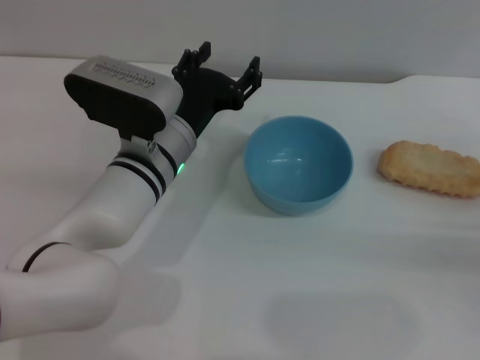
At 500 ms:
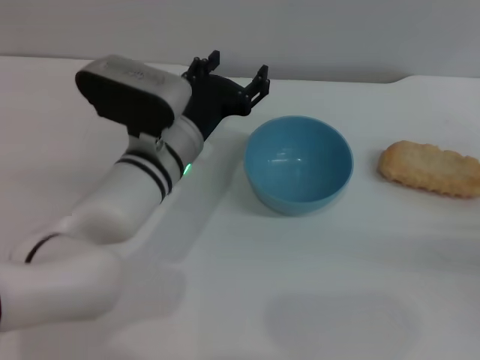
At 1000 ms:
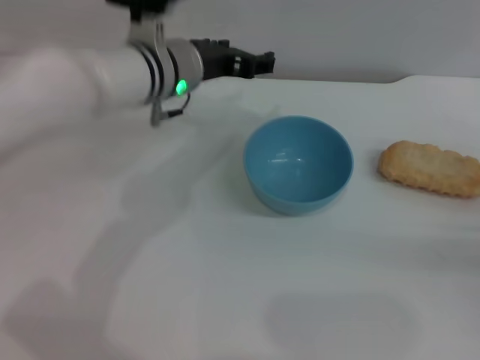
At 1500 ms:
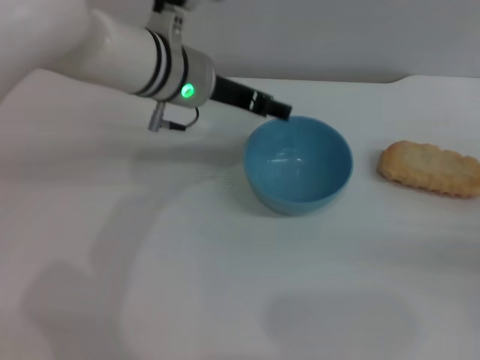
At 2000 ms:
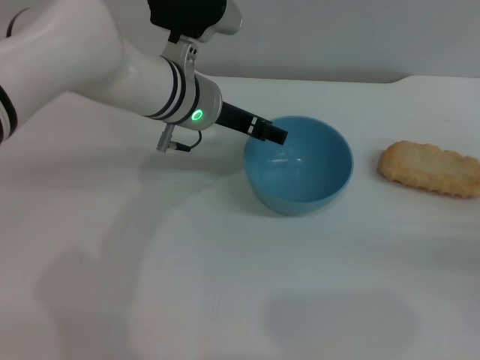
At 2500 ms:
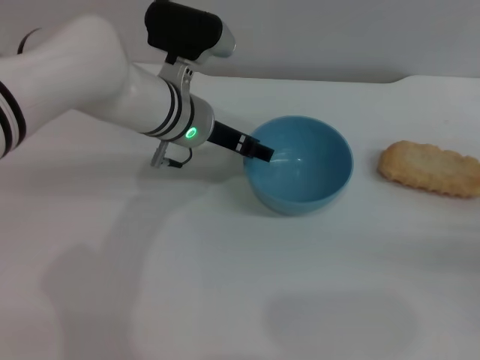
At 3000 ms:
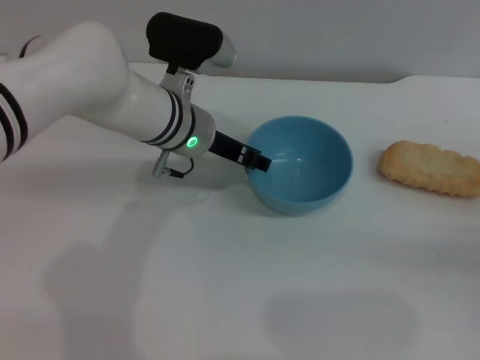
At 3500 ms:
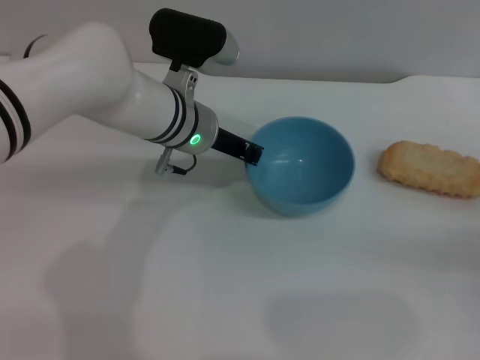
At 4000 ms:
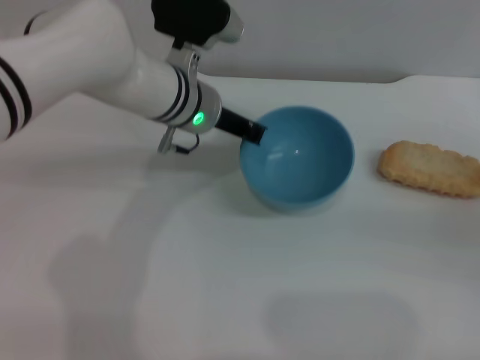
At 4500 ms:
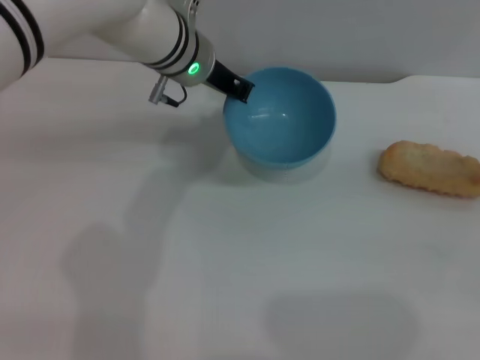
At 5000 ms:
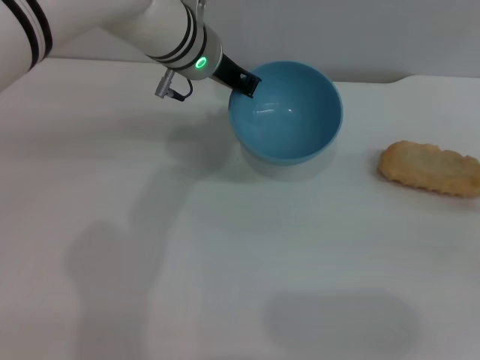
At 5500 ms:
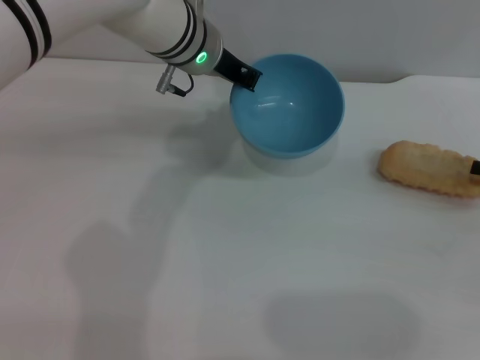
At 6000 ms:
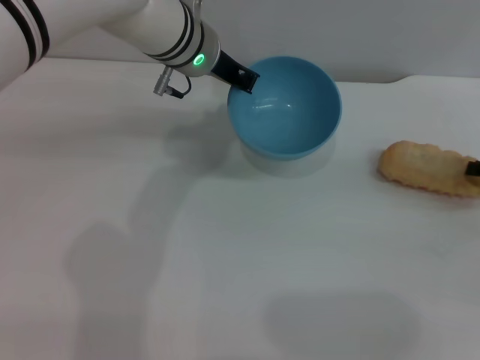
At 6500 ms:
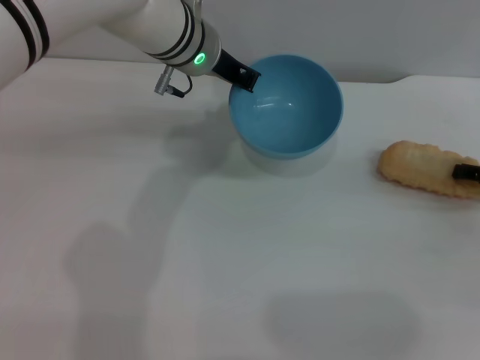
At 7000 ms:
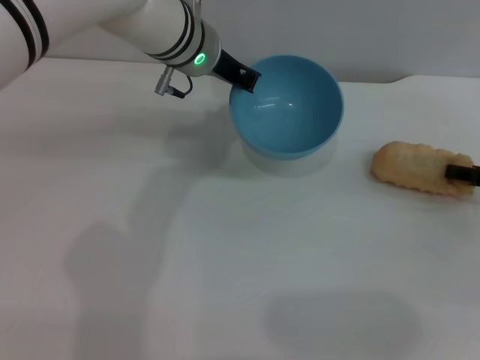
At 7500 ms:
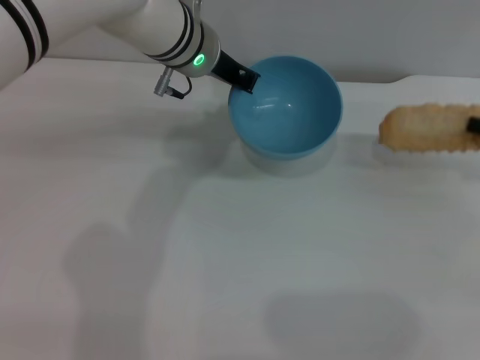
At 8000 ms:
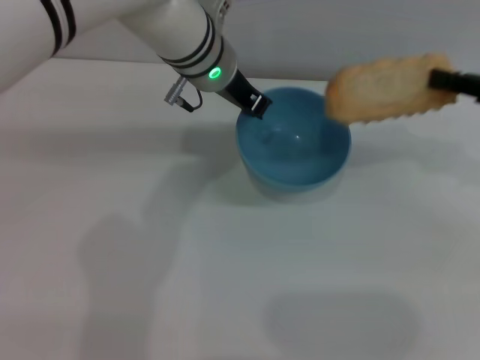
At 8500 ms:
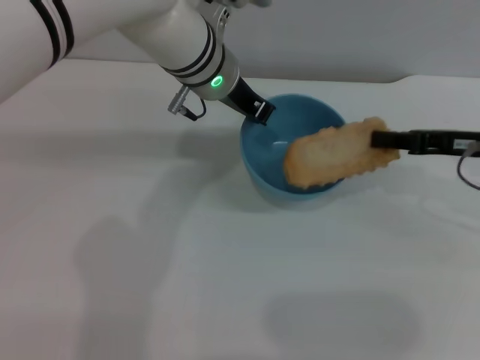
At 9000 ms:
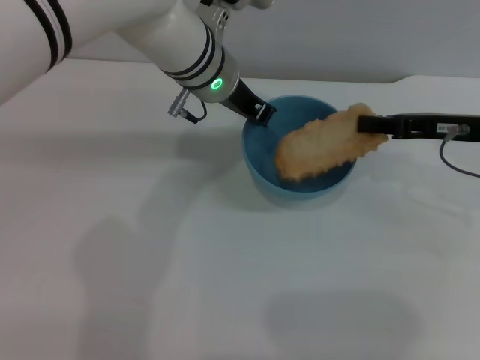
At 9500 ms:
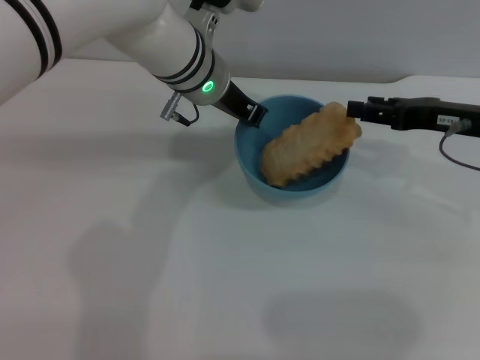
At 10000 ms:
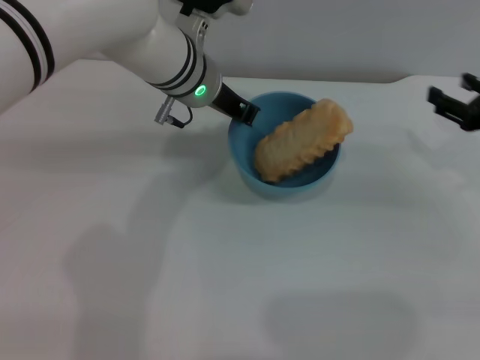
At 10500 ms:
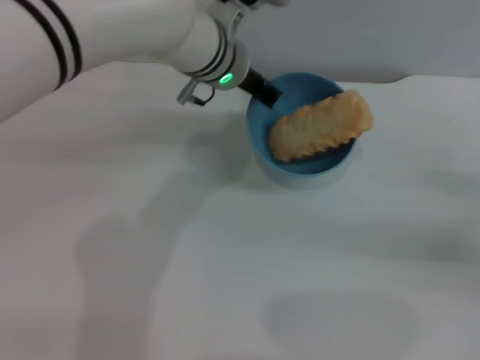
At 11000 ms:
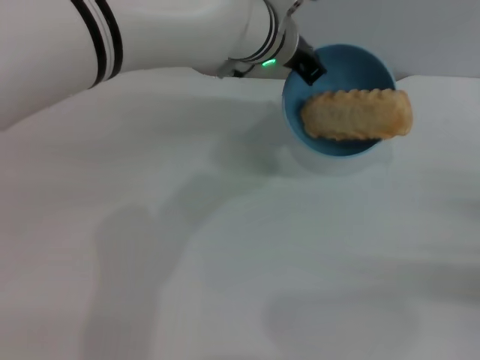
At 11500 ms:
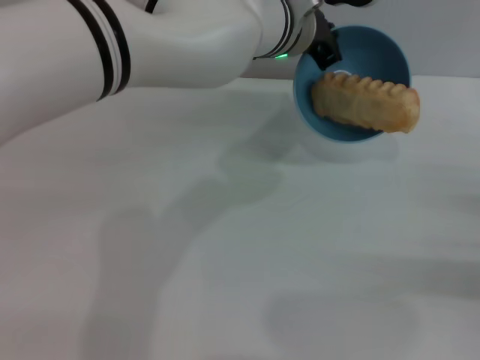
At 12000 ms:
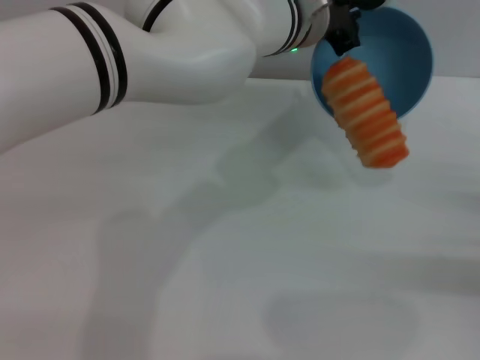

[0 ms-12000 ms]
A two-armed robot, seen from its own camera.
Task of the whole recording: put the bread into the blue bowl and pour it out repeatedly.
Step, 0 ms to 4000 ms: Pick up the bowl with the left gripper.
Step, 4500 ms to 7000 ms: Pick up the bread with the right gripper.
Step, 7500 ms to 9500 ms: Place the bread into the bowl.
0 ms to 2000 ms: The left gripper heads forward and upward, covering roughly 10 cm.
2000 ms to 4000 ms: The left gripper closes.
4000 ms to 6000 ms: The right gripper ends up about 5 cm from where it was. Meanwhile the left gripper shifts by some 5 cm.
6000 ms to 8000 ms: The right gripper travels upward by about 10 cm, and closes up.
8000 ms to 10000 ms: The right gripper heads downward, covering some 5 cm, and opens up.
10000 ms to 12000 ms: The left gripper moves to the right, about 10 cm; the right gripper goes some 15 cm backward, downward and to the right.

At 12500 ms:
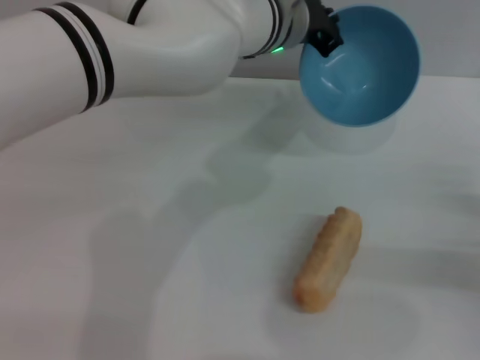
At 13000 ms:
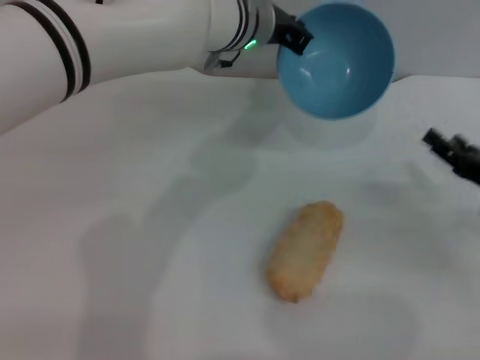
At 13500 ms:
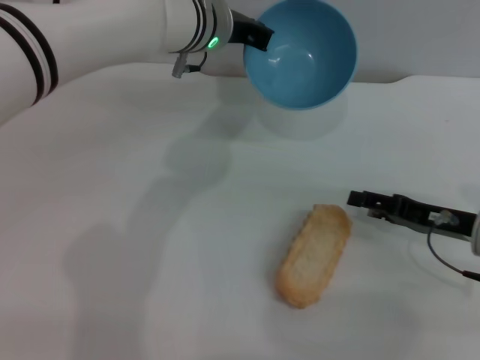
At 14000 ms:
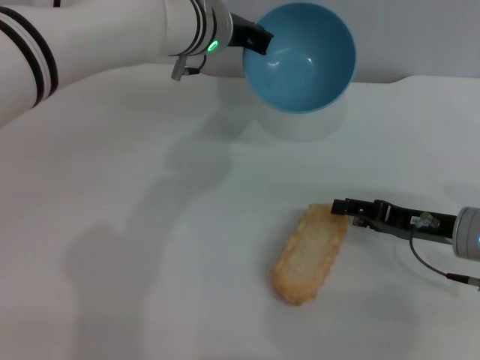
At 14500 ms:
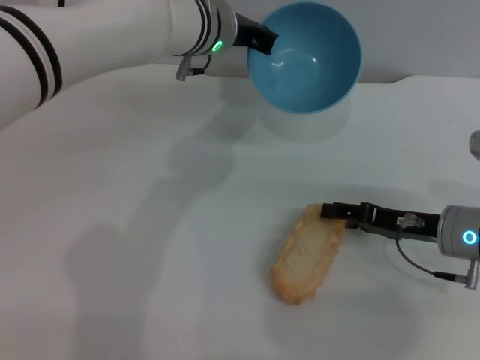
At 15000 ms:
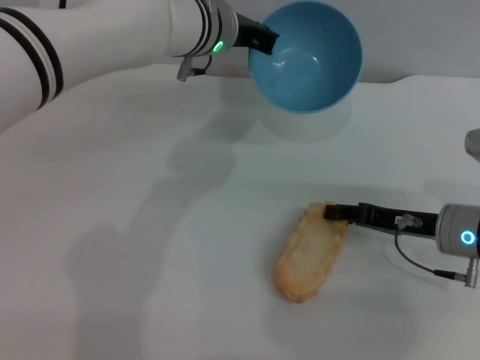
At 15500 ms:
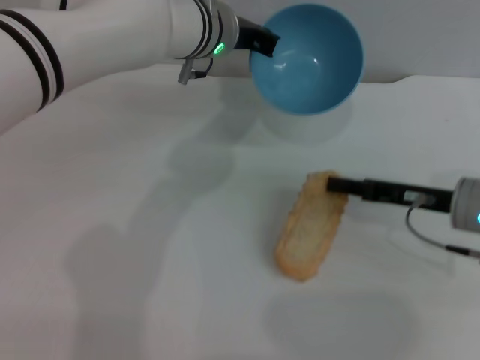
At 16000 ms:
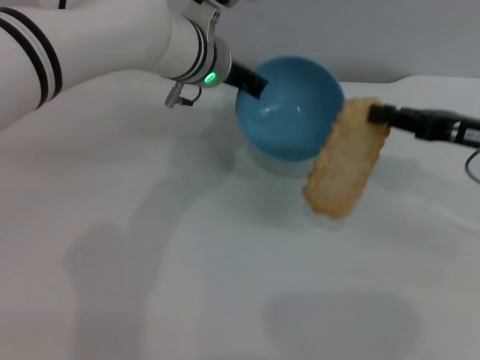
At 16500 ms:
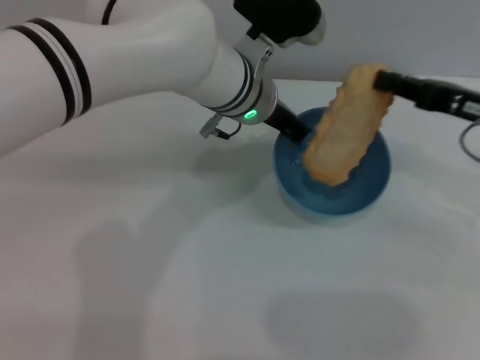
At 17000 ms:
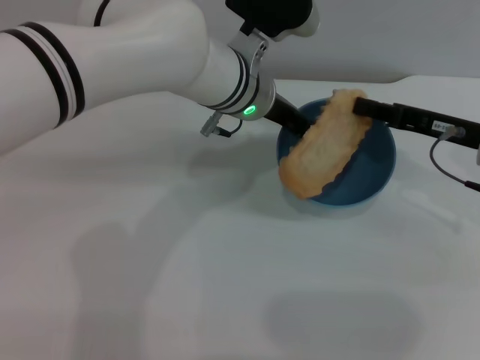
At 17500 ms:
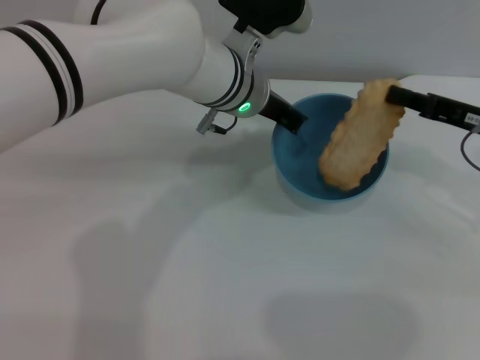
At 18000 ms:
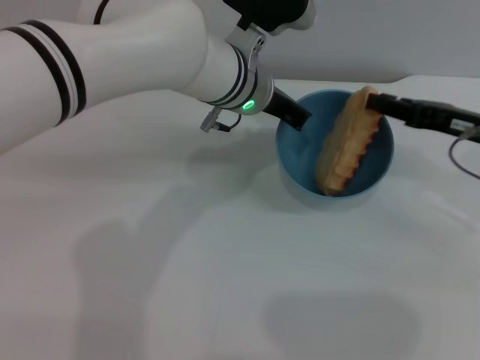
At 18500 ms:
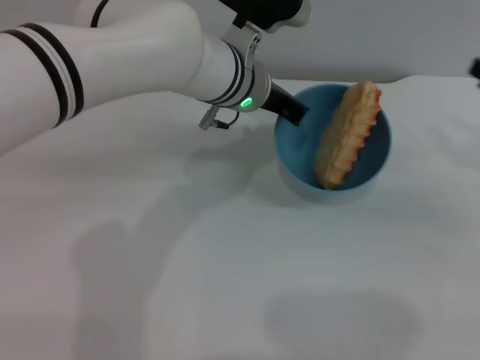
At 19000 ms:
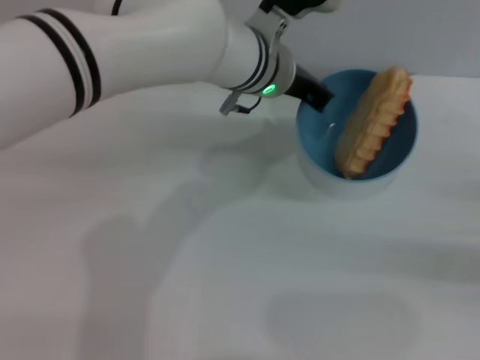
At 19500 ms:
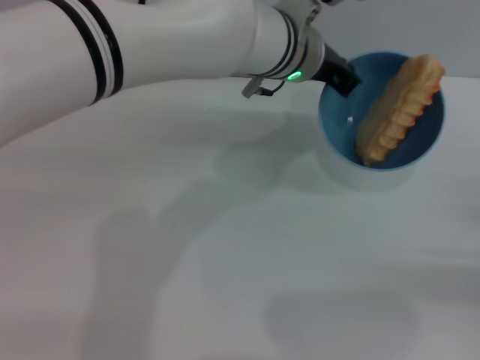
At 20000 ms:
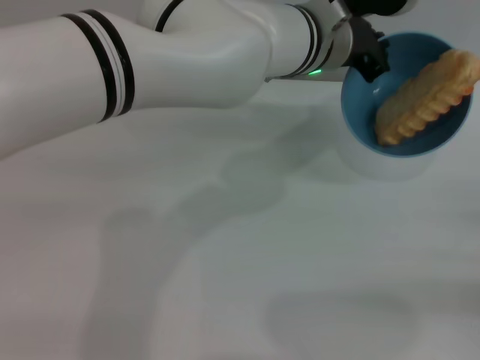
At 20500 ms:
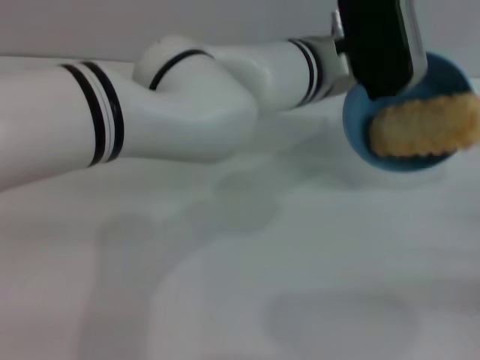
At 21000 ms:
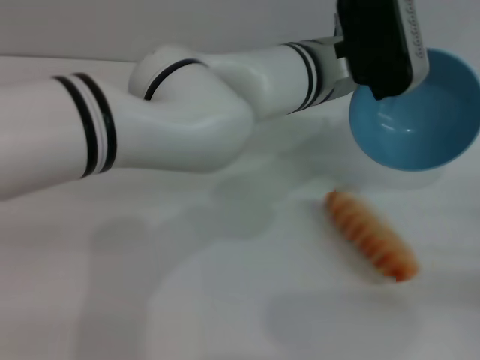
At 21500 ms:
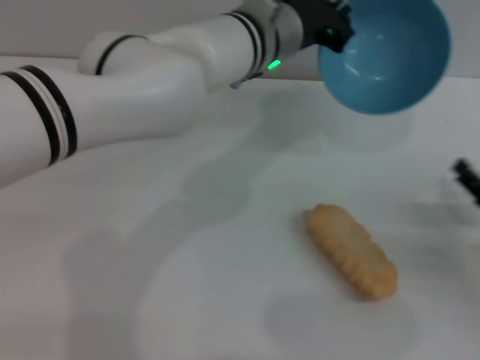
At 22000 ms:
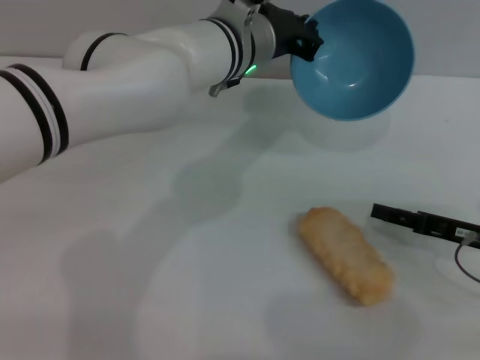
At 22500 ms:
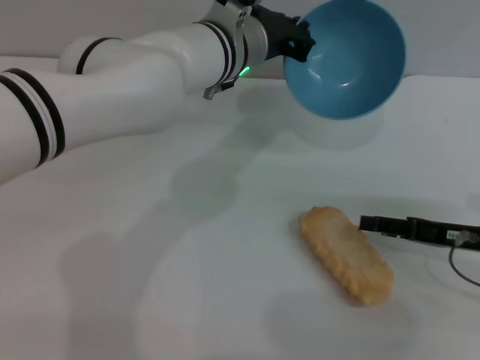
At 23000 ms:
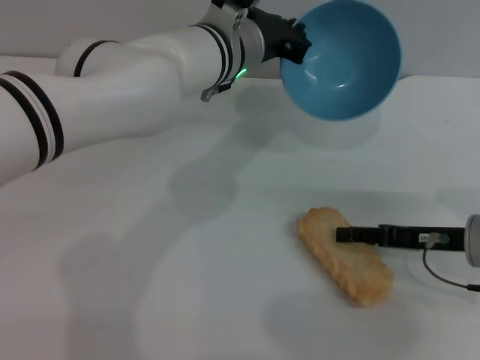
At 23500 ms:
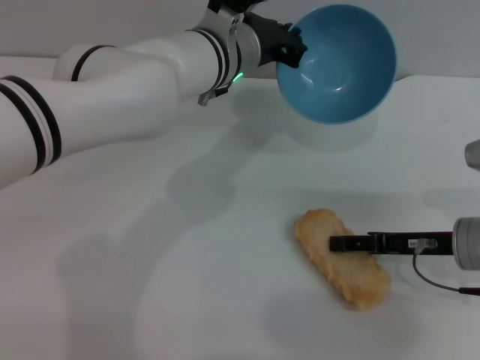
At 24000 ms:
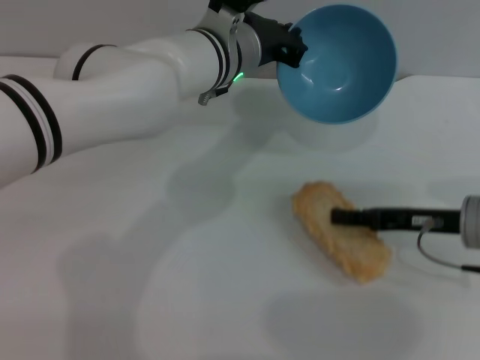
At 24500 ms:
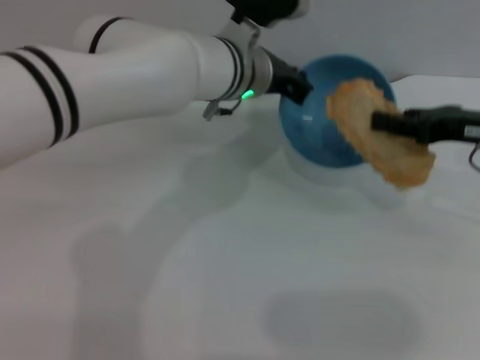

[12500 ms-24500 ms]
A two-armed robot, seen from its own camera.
Task of the whole recording: put the bread into the blue bowl and pour it out repeatedly.
Step, 12500 ms to 15500 ms: Pick up the bread with the right gripper.
Step, 16000 ms to 18000 ms: Place the bread into the bowl.
Step, 18500 ms to 21000 ms: Pour the bread out of the bowl.
Step, 21500 ms to 24000 ms: Pick up the bread with the right gripper.
12500 ms to 14500 ms: The left gripper travels to the left by approximately 5 cm. The right gripper shifts about 15 cm to the left and forward.
14500 ms to 16500 ms: The right gripper travels upward by some 10 cm, and closes its fingers. The left gripper shifts by some 5 cm.
16500 ms to 18500 ms: The right gripper is displaced to the right by some 5 cm, and opens up.
18500 ms to 20500 ms: The right gripper goes roughly 15 cm backward and downward. The left gripper heads to the right, covering about 5 cm.
20500 ms to 22500 ms: The left gripper heads to the left, covering some 10 cm. The right gripper goes about 10 cm to the left and forward.
22500 ms to 24500 ms: The right gripper heads upward and forward, covering roughly 10 cm, and closes up.

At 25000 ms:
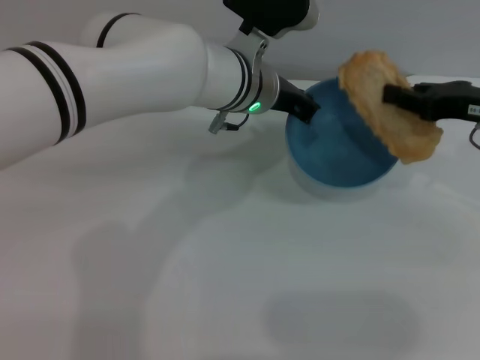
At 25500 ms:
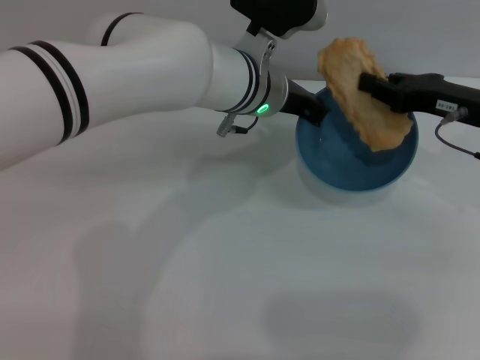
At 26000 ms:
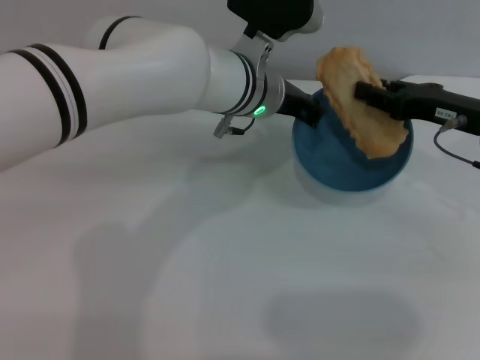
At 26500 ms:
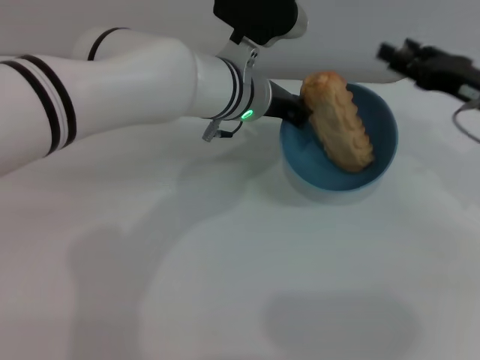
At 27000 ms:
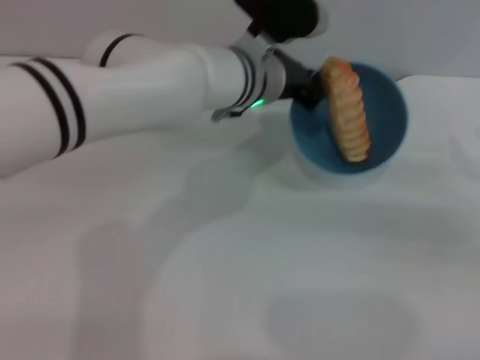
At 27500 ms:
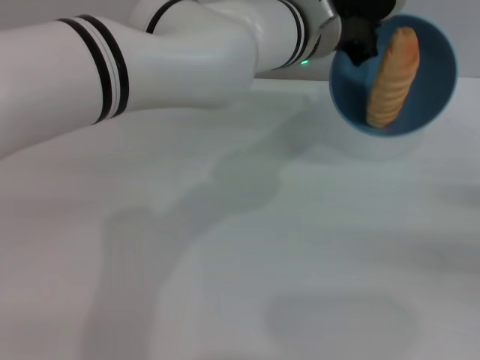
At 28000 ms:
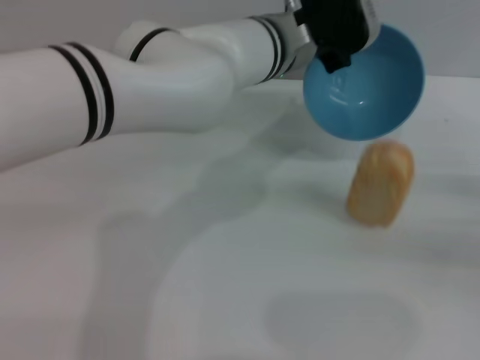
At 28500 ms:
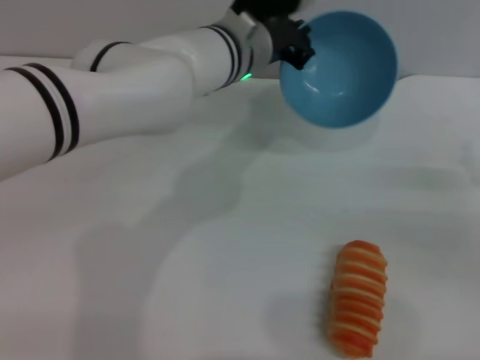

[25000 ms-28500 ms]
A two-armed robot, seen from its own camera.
Task of the whole recording: put the bread into the blue bowl and pour it out repeatedly.
Step, 25000 ms to 26000 ms: Place the bread into the bowl.
Step, 26500 ms to 28000 ms: Pour the bread out of the bowl.
25000 ms to 27000 ms: The right gripper shifts some 10 cm to the right, downward and backward, and opens.
